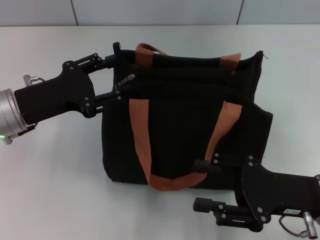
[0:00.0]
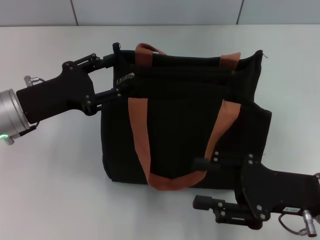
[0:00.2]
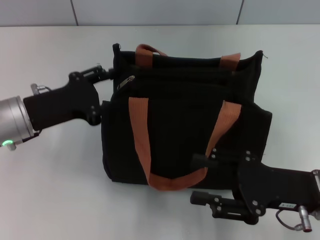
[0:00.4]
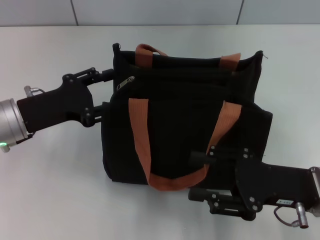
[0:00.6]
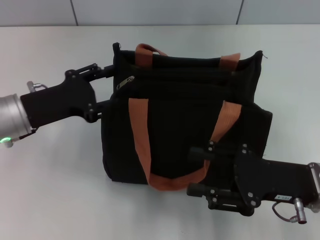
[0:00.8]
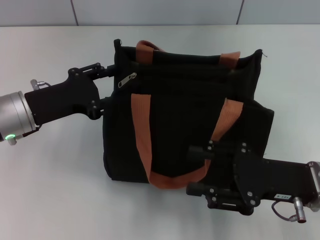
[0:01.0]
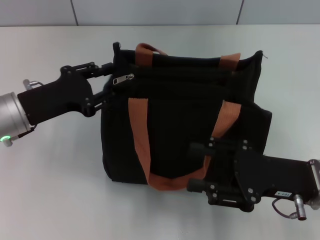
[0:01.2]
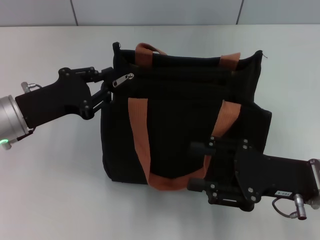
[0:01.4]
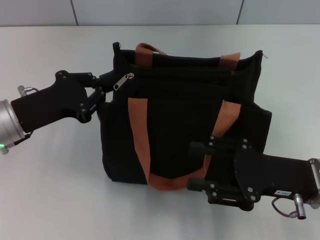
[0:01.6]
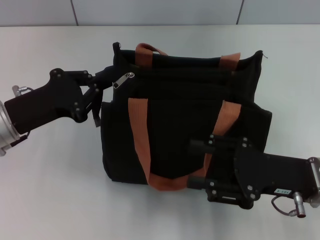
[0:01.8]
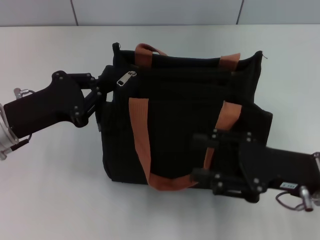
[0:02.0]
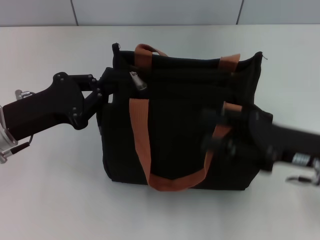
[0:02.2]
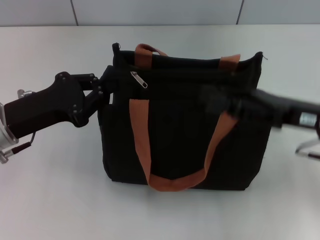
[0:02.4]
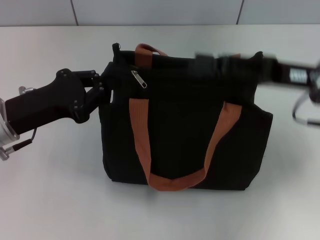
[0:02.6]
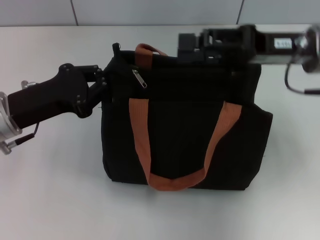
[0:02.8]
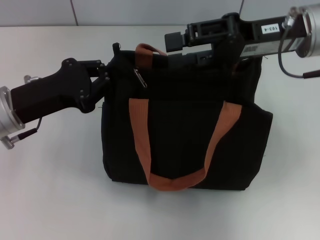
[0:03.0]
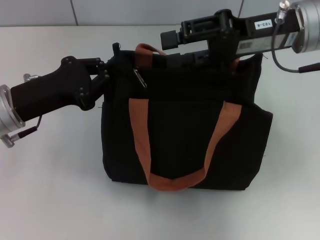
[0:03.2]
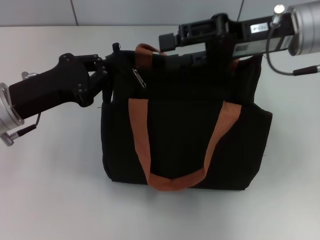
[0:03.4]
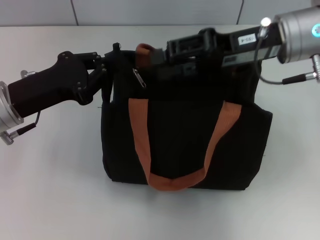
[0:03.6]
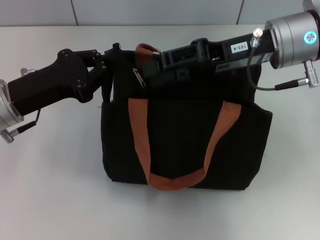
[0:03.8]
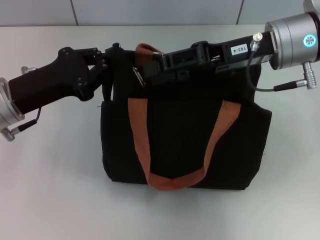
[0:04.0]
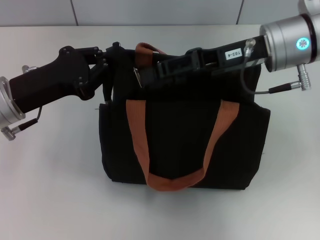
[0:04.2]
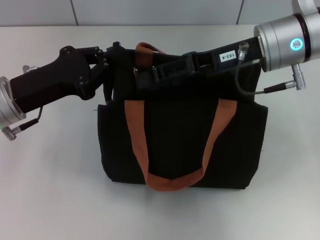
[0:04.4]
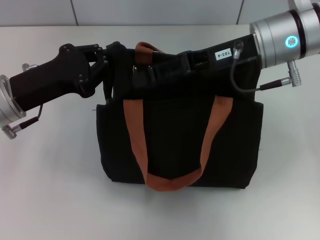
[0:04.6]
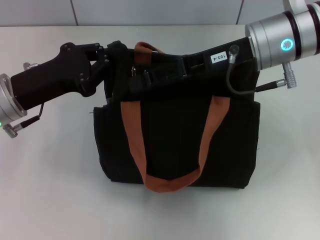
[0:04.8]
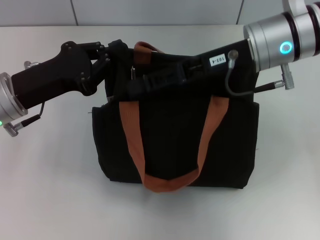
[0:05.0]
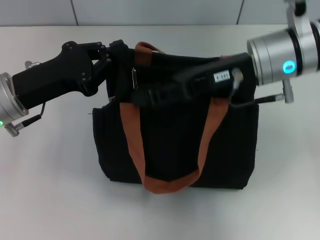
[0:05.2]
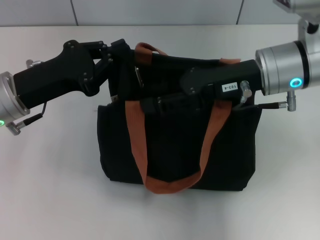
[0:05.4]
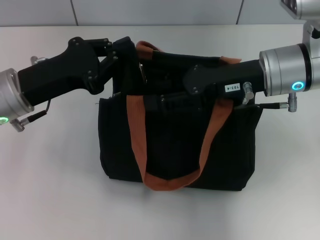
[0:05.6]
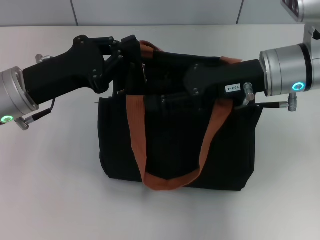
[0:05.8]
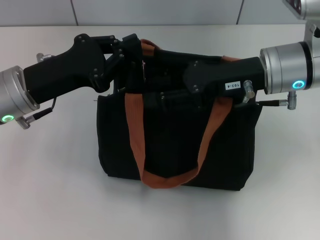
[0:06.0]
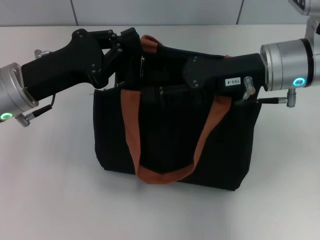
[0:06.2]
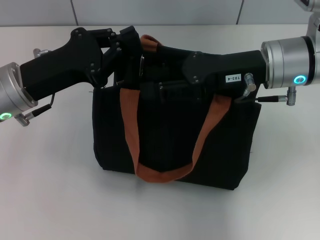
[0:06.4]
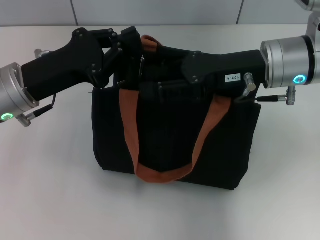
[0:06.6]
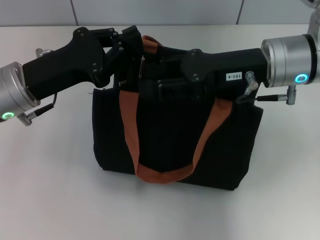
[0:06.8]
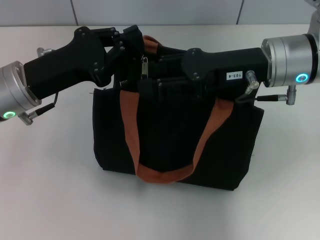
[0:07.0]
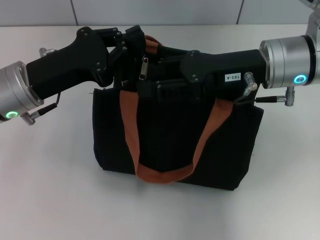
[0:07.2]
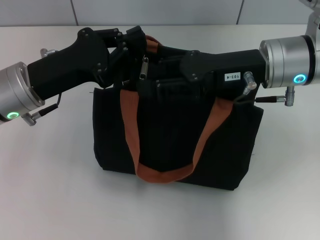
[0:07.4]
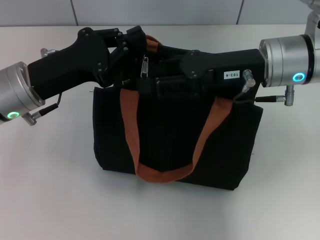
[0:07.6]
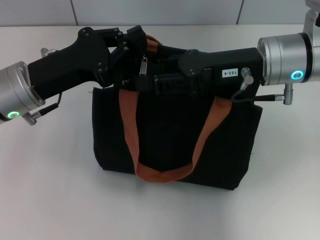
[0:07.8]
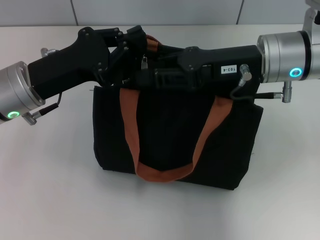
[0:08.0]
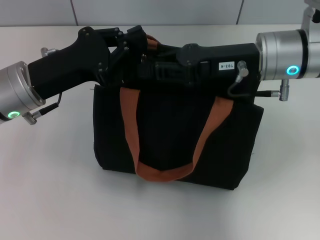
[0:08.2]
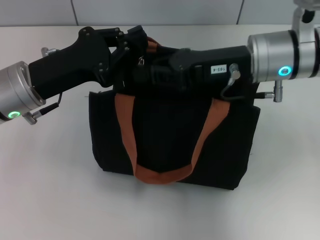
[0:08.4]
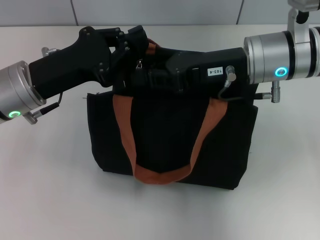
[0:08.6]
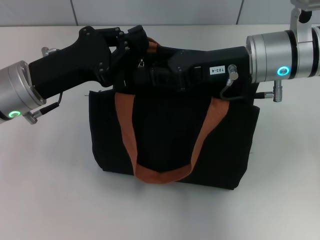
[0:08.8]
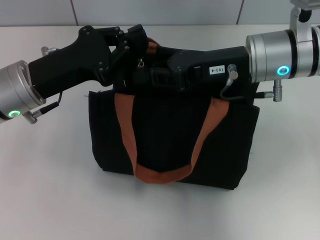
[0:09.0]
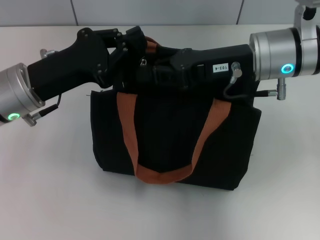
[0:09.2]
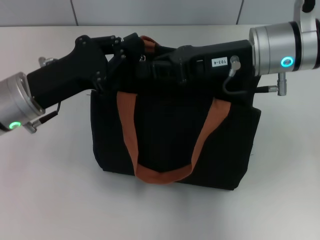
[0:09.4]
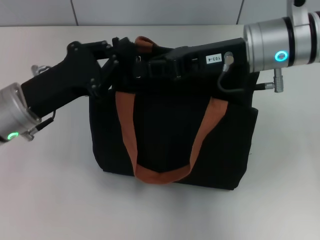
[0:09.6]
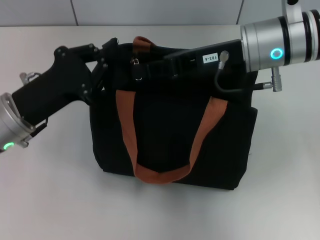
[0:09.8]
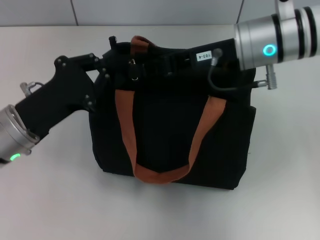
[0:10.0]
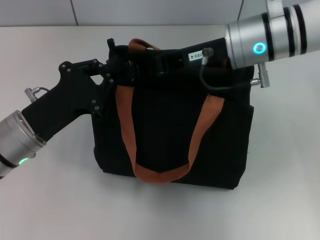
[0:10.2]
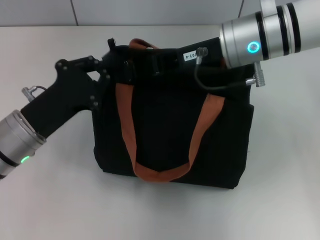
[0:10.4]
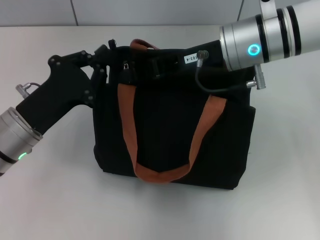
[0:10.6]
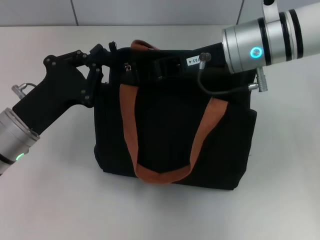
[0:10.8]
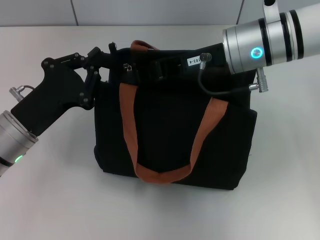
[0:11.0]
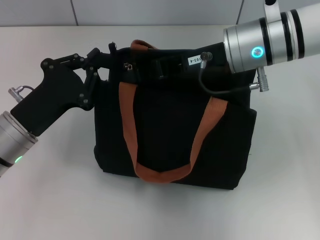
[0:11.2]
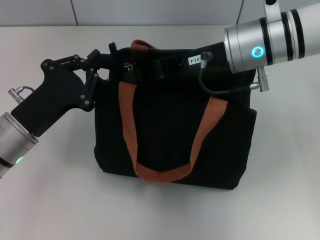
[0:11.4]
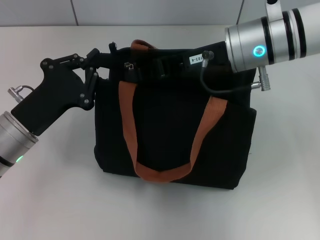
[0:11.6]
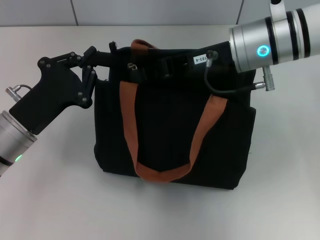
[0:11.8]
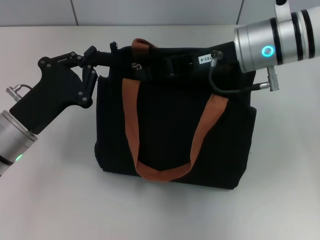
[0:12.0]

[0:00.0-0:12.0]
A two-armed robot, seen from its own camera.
0:00.0 to 0:01.6: The left gripper closes up.
0:01.6 to 0:03.0: The right gripper travels forward and upward by about 20 cm.
0:03.0 to 0:04.4: The grippers stay close to where they were, moving slightly.
0:06.0 to 0:07.6: The grippers stay close to where they were, moving slightly.
0:07.6 to 0:09.0: The right gripper closes up.
0:09.0 to 0:10.4: The left gripper moves downward, roughly 5 cm.
0:10.4 to 0:12.0: There are only small adjustments of the grippers.

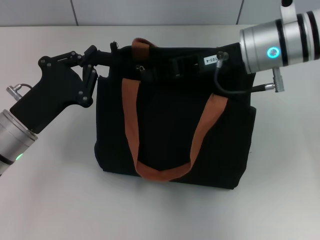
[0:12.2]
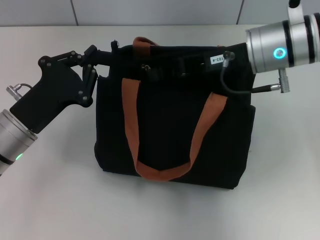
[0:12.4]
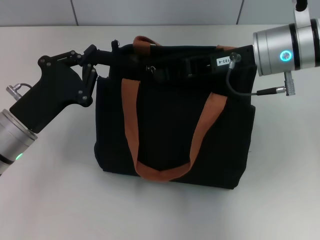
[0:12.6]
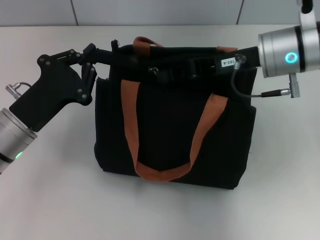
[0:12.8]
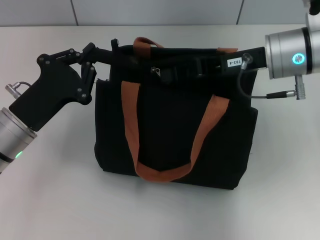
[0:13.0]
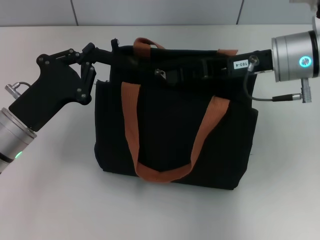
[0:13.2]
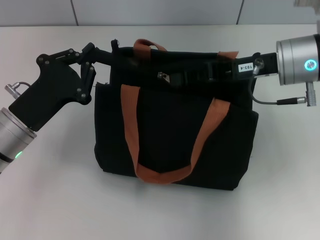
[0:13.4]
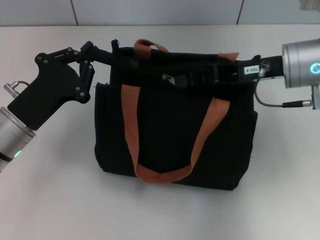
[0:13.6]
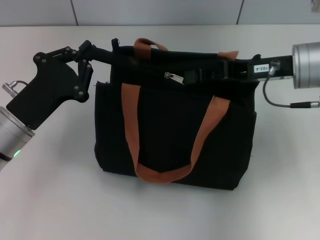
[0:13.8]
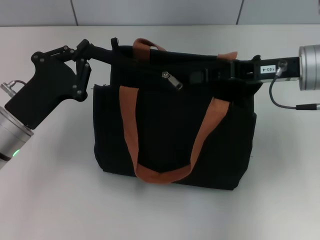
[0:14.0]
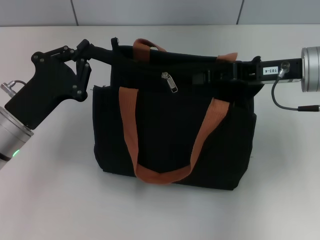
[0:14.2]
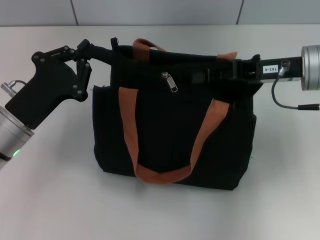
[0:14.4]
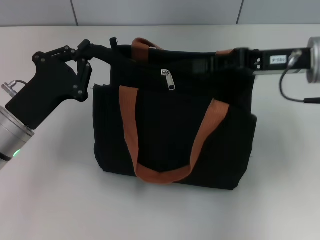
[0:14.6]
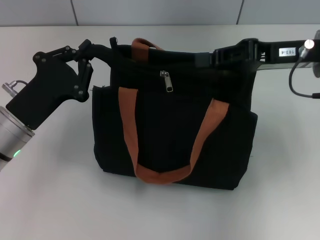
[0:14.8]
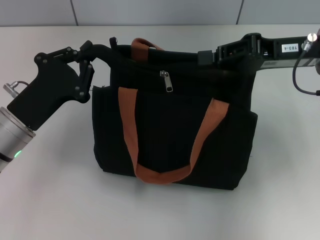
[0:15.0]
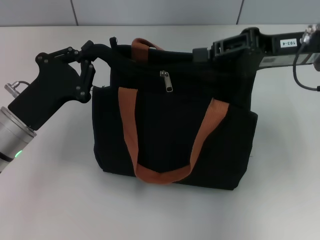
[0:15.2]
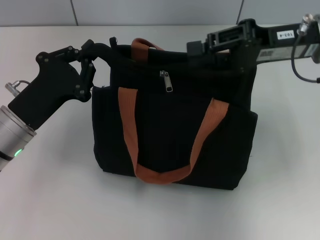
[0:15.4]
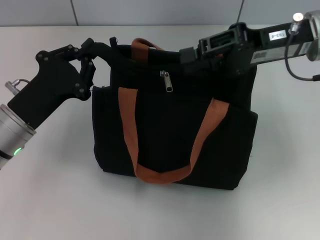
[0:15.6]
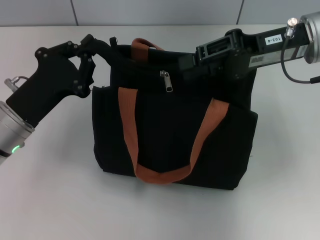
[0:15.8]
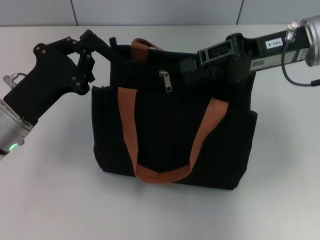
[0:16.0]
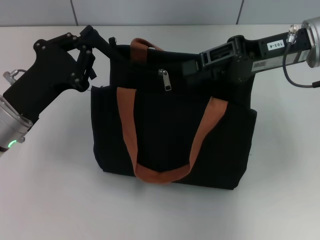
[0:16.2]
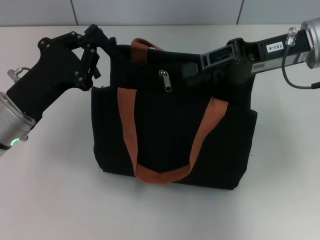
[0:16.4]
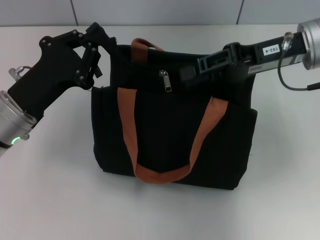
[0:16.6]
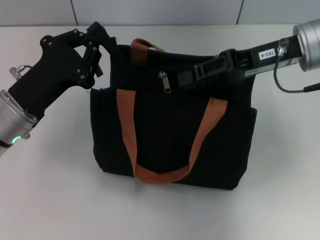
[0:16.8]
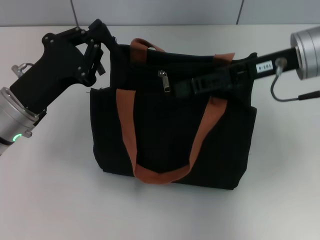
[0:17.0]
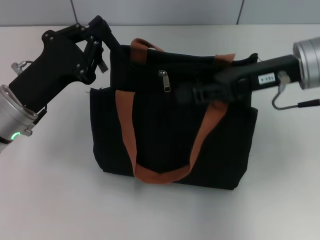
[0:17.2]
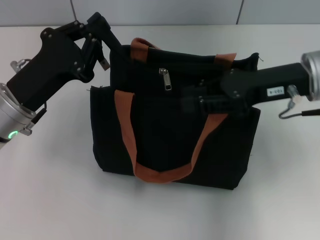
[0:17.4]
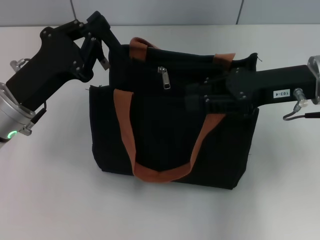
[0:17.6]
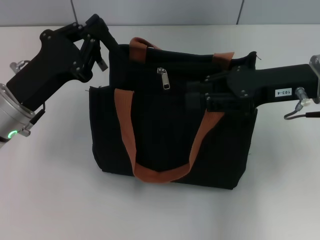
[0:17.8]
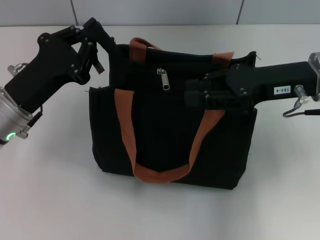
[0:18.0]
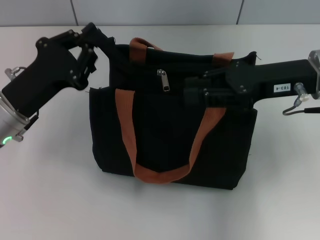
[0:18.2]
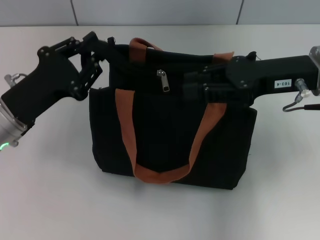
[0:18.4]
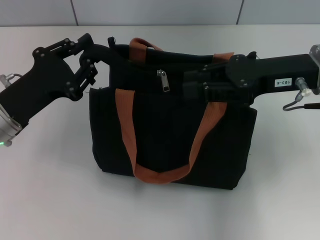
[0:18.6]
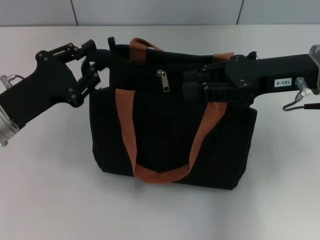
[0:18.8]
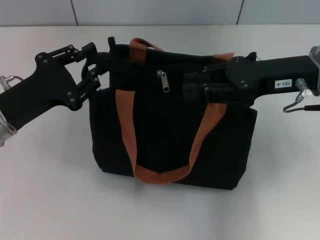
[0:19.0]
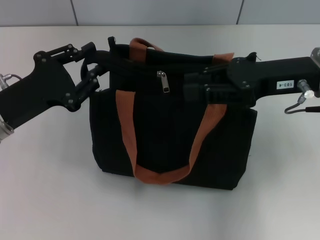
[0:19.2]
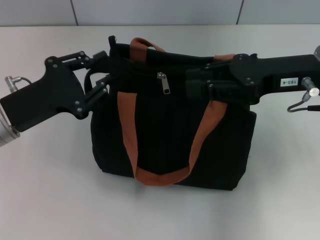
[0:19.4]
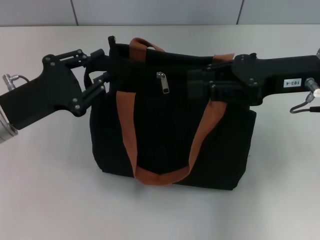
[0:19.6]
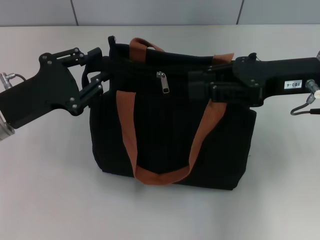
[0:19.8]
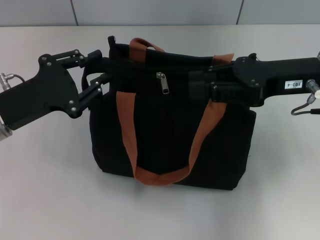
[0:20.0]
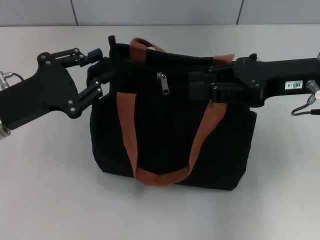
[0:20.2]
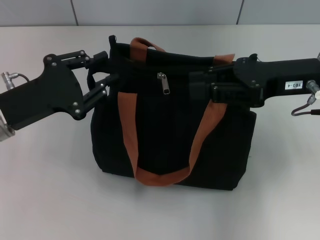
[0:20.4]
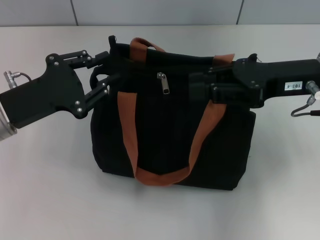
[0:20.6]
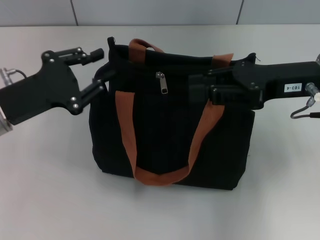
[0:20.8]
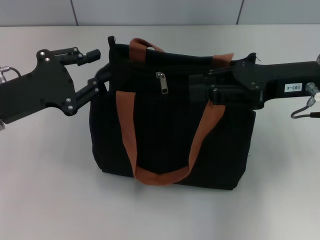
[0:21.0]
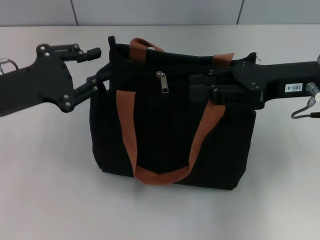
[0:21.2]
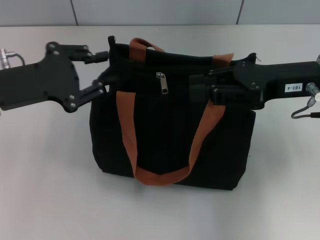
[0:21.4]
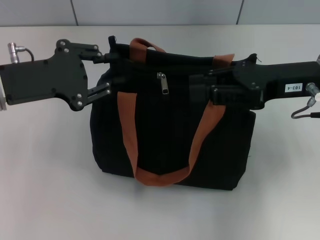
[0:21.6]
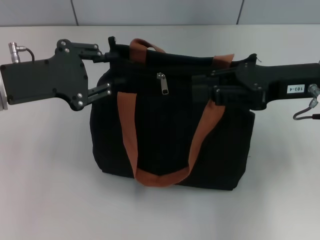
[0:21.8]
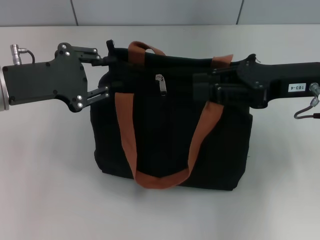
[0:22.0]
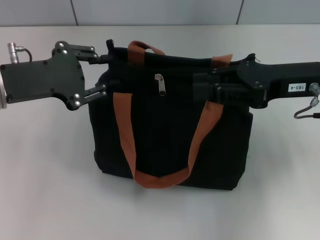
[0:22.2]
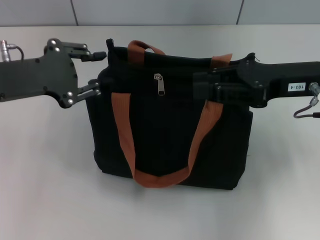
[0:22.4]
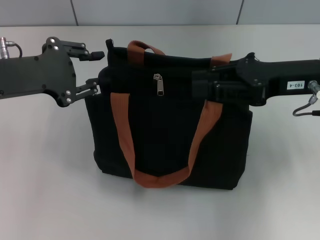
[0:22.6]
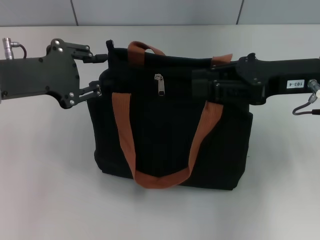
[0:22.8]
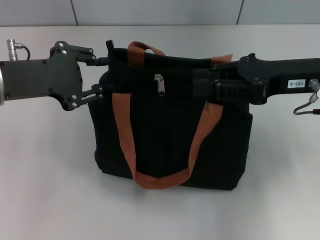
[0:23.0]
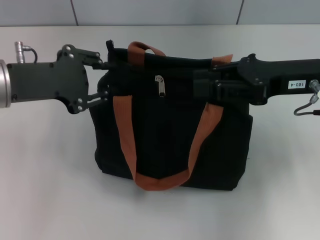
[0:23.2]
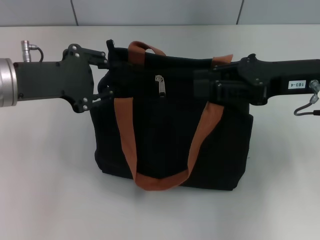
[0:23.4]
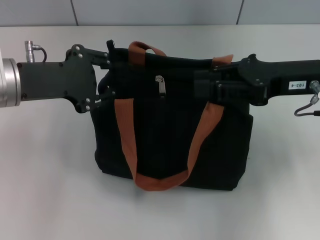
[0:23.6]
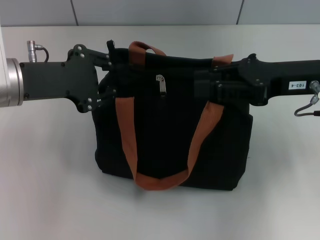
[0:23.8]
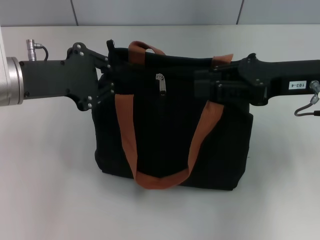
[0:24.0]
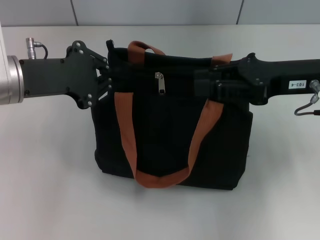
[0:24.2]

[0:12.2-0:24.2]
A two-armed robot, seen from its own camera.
0:12.2 to 0:13.8: The right gripper is displaced to the right by some 5 cm.
0:13.8 to 0:15.2: The grippers stay close to where they were, moving slightly.
0:15.2 to 0:16.6: The right gripper opens its fingers.
0:18.2 to 0:19.8: The left gripper opens its fingers.
0:19.8 to 0:21.2: The grippers move only a little.
0:21.2 to 0:22.6: There are only small adjustments of the grippers.
0:22.6 to 0:24.2: The grippers stay close to where they were, moving slightly.
